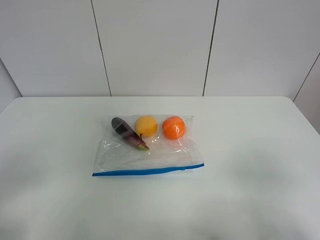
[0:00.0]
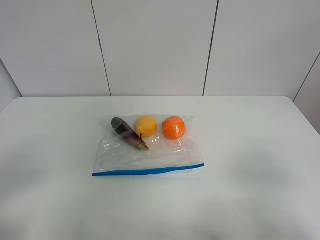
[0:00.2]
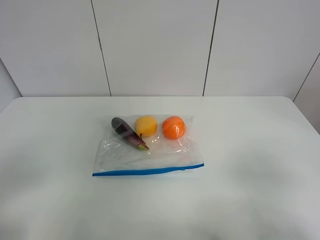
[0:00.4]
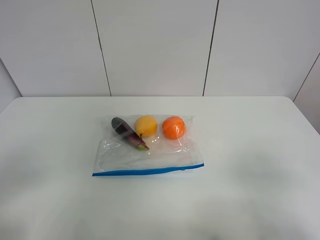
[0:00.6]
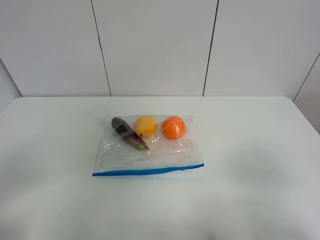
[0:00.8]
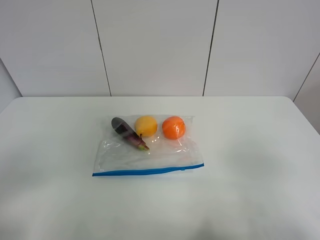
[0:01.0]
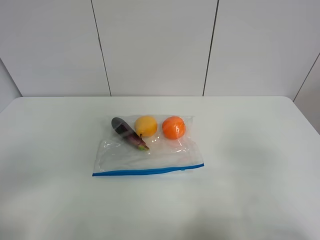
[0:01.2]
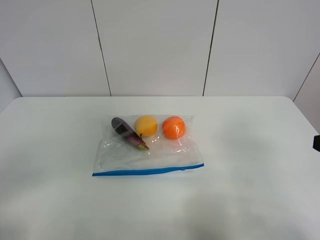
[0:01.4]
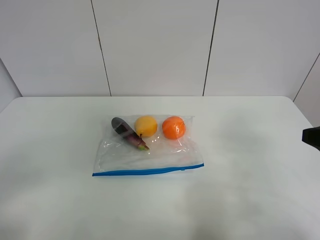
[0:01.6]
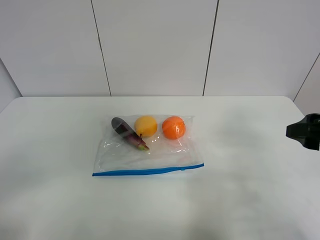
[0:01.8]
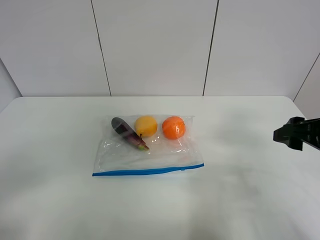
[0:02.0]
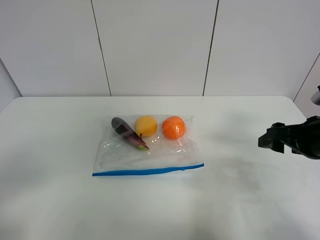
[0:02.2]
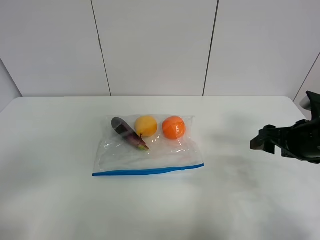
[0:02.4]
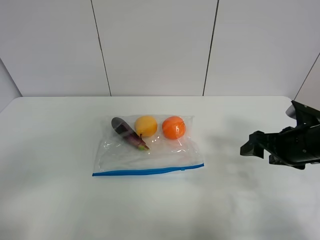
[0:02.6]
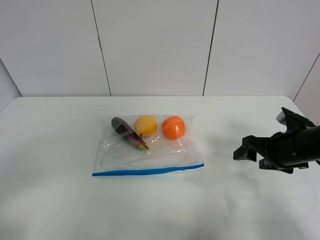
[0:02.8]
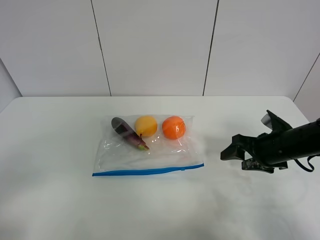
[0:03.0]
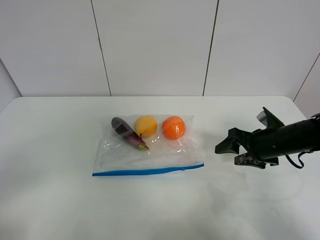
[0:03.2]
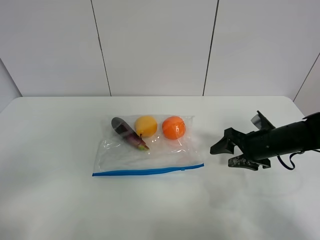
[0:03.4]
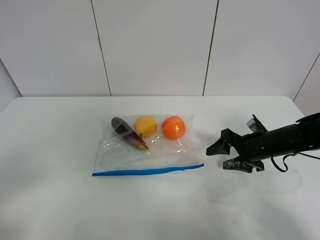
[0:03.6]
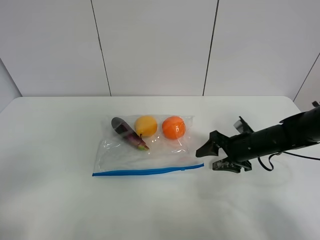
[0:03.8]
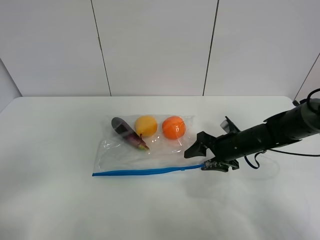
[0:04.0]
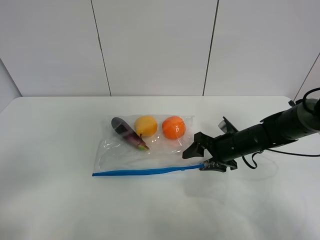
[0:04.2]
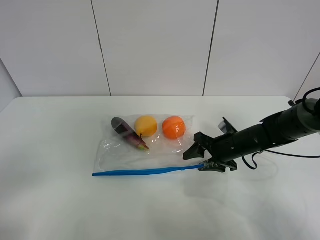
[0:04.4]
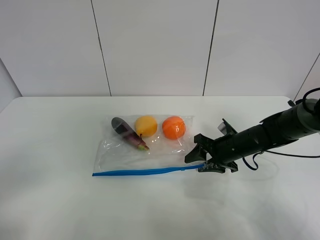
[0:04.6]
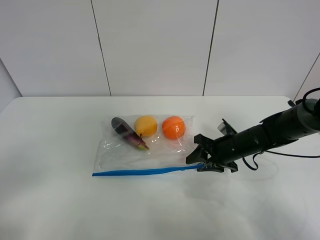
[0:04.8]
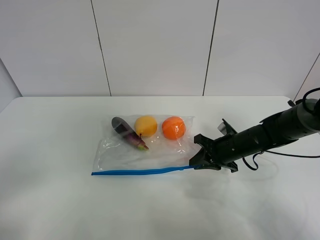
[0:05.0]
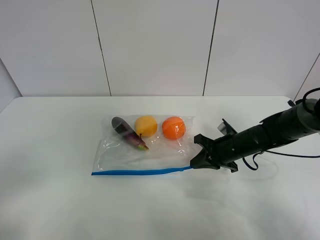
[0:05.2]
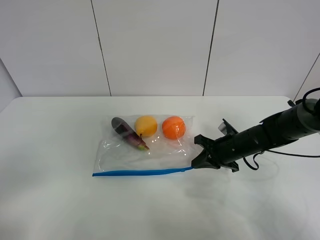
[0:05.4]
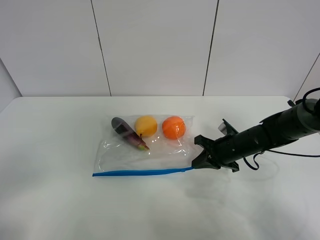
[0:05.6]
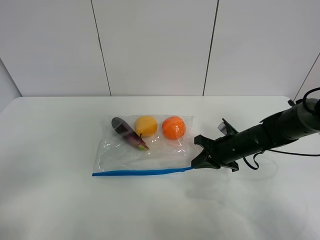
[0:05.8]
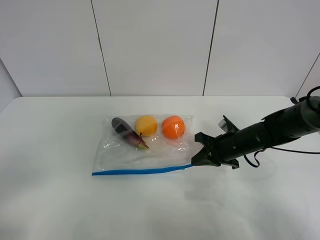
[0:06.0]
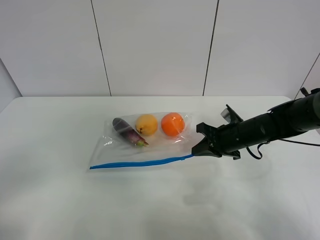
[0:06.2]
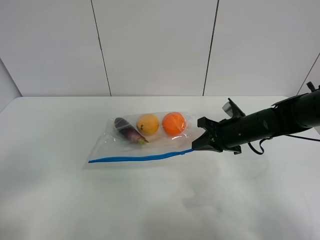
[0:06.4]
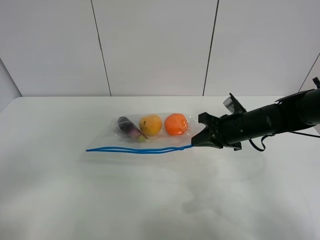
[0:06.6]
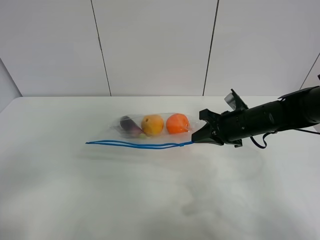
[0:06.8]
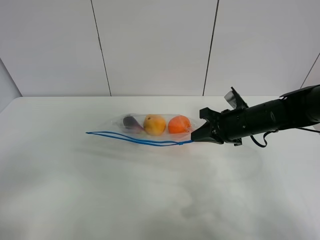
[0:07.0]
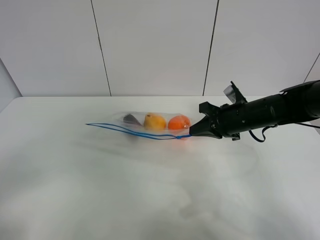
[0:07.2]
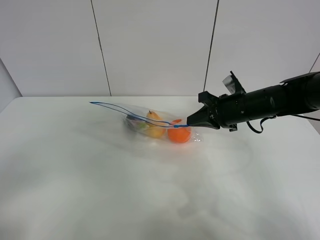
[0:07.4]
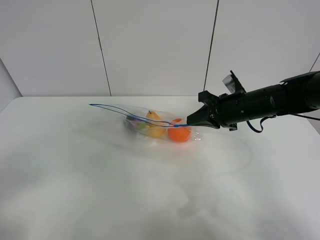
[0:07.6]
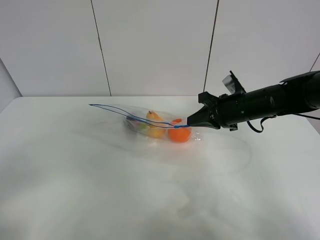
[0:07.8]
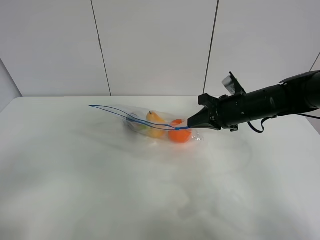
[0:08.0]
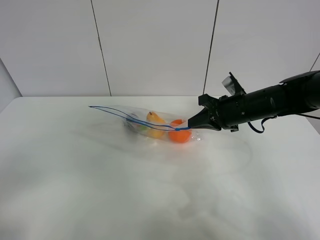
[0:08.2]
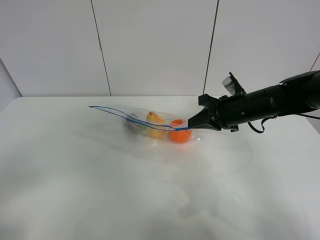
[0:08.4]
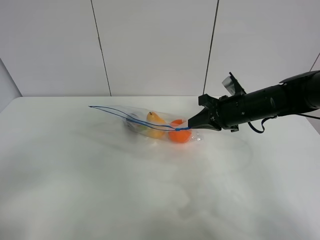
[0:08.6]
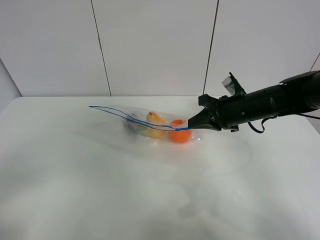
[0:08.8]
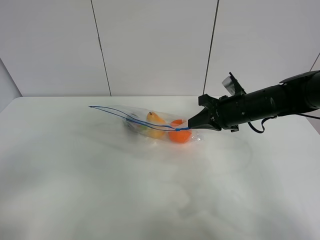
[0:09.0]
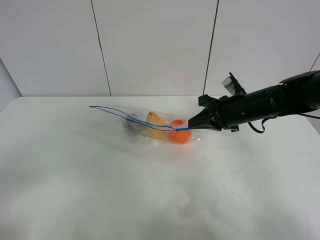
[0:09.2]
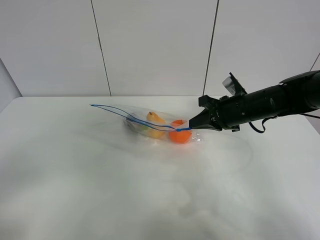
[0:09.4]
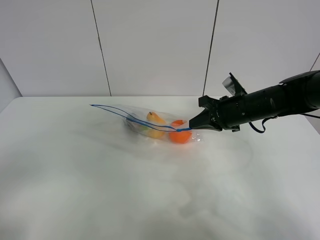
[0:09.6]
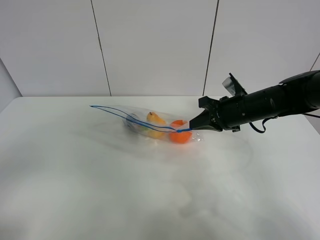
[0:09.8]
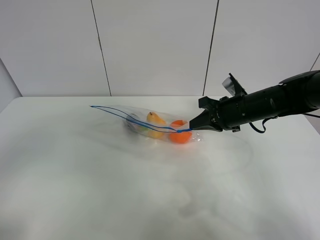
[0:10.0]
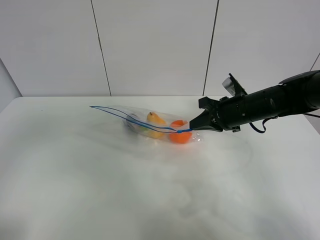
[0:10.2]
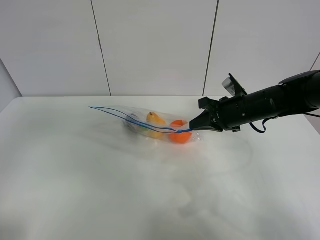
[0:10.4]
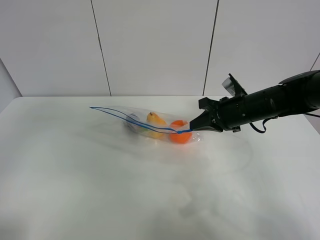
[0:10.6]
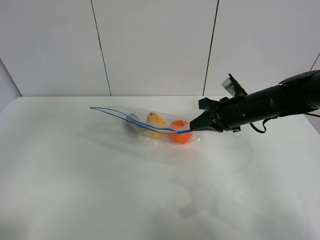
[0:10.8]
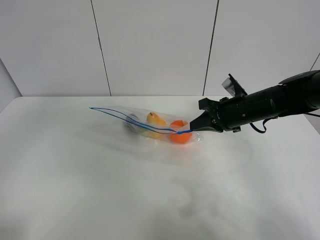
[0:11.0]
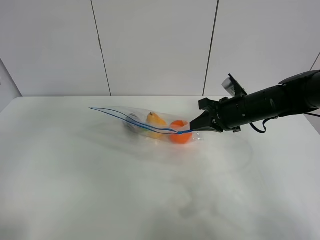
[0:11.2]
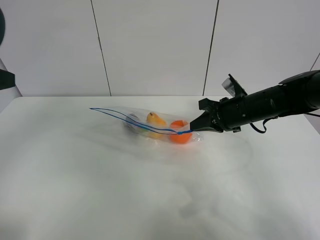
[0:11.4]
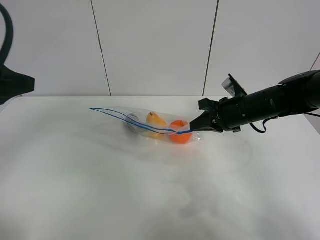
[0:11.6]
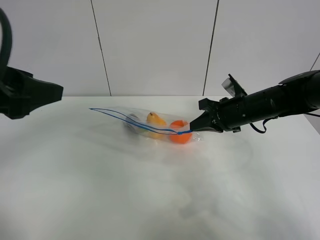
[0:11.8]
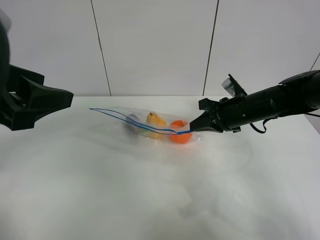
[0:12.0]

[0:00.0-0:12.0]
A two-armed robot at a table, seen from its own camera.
Step, 0:00.0 to 0:05.2: Grasp the fruit bag with right gripper.
Step, 0:05.4 to 0:07.6: Lift the fruit bag with your right gripper.
0:00.0 to 0:01.6: The right gripper shifts approximately 15 cm forward.
0:01.6 to 0:03.0: The right gripper heads downward and forward, covering approximately 20 cm.
0:03.0 to 0:04.4: The right gripper is displaced to the left and downward by about 10 cm.
0:04.4 to 0:06.0: The right gripper closes up.
0:06.0 to 0:07.6: The right gripper heads upward, covering approximately 10 cm.
0:07.6 to 0:09.0: The two grippers keep their place.
0:09.0 to 0:10.4: The left gripper shifts roughly 15 cm upward and forward.
0:10.4 to 0:12.0: The left gripper moves to the right and forward, approximately 10 cm.

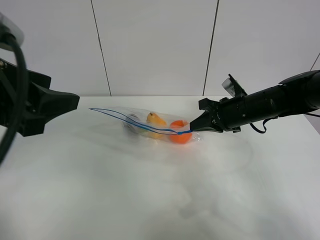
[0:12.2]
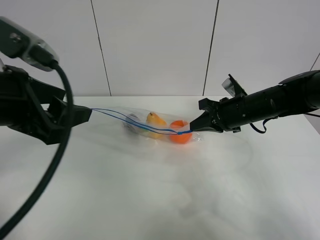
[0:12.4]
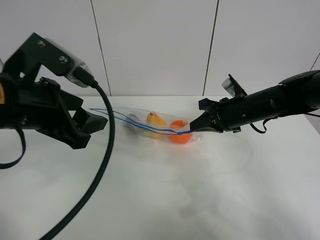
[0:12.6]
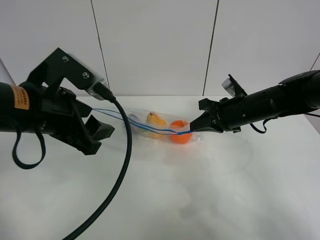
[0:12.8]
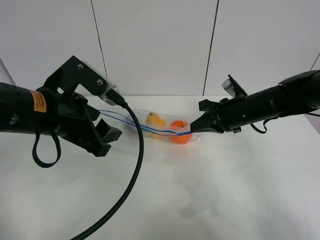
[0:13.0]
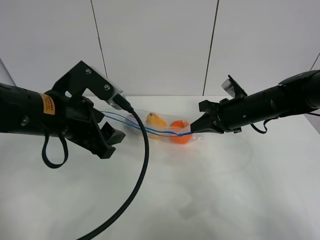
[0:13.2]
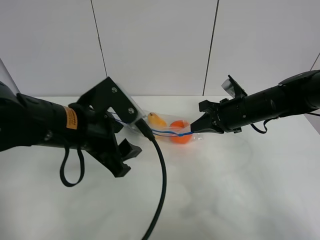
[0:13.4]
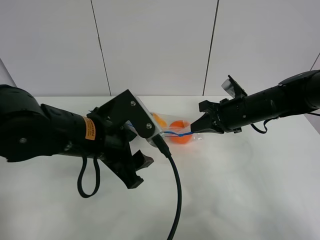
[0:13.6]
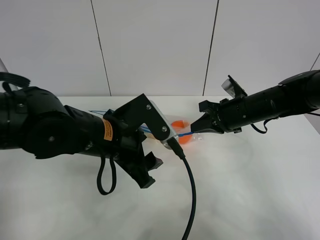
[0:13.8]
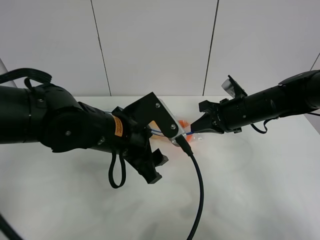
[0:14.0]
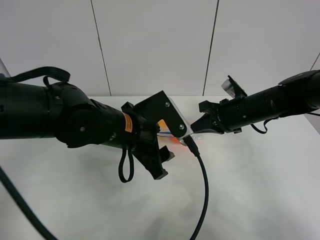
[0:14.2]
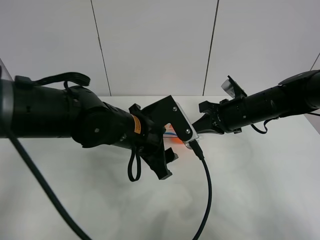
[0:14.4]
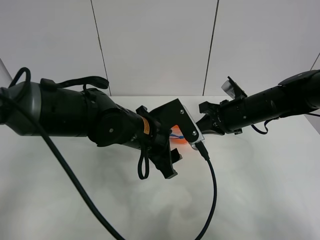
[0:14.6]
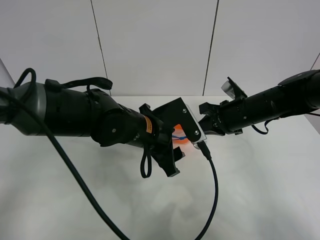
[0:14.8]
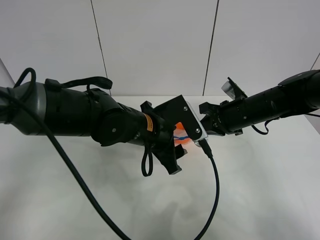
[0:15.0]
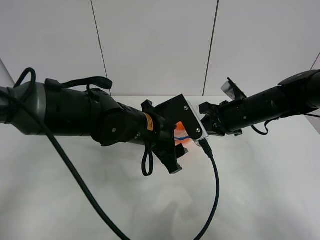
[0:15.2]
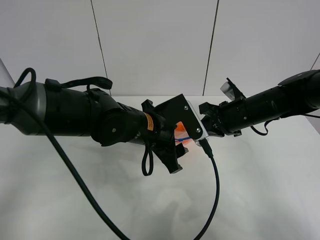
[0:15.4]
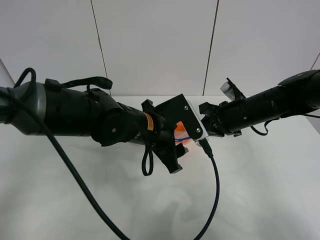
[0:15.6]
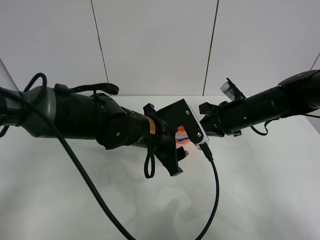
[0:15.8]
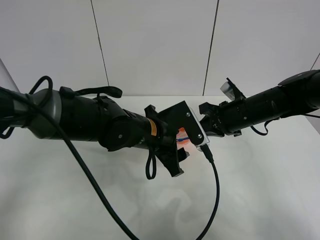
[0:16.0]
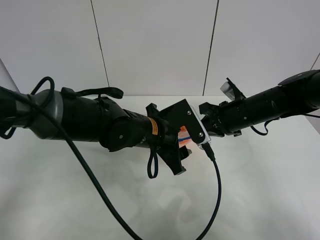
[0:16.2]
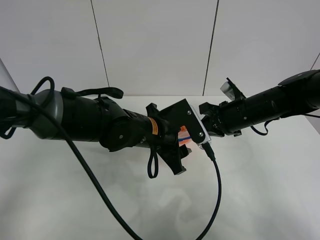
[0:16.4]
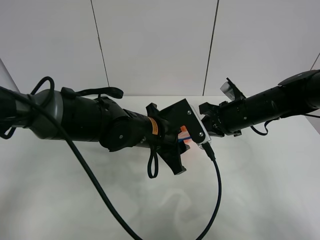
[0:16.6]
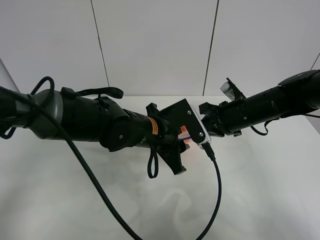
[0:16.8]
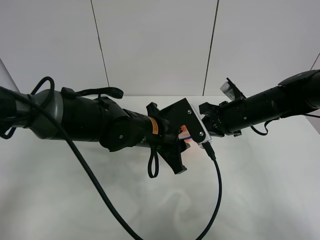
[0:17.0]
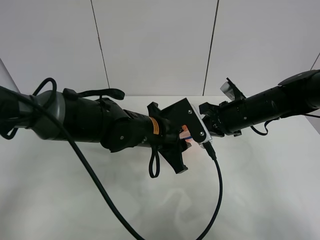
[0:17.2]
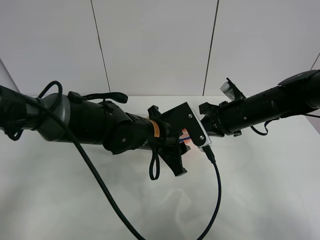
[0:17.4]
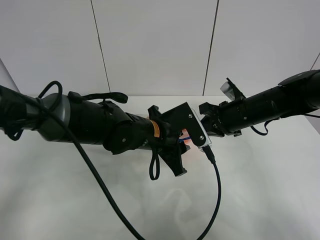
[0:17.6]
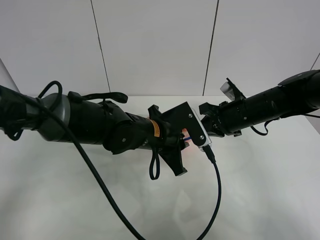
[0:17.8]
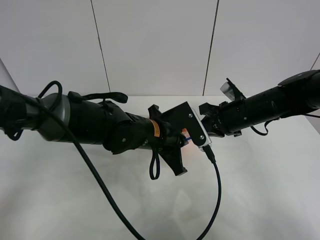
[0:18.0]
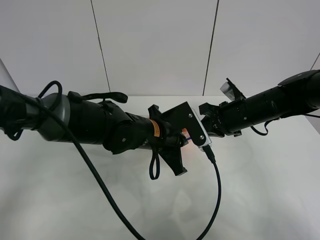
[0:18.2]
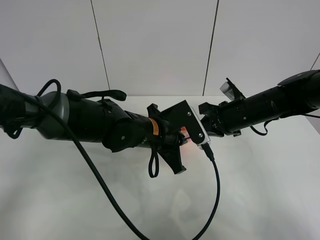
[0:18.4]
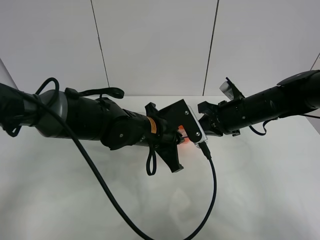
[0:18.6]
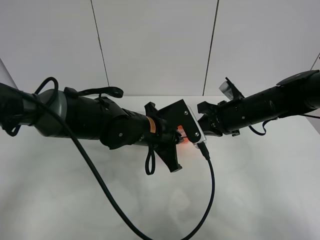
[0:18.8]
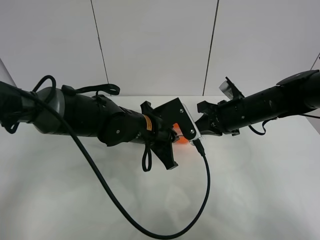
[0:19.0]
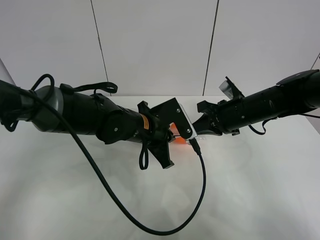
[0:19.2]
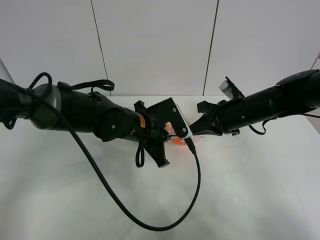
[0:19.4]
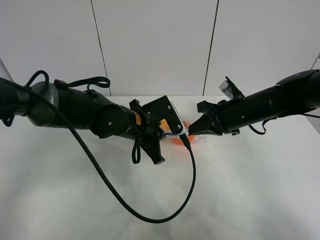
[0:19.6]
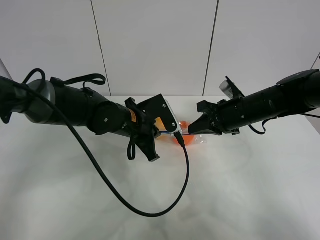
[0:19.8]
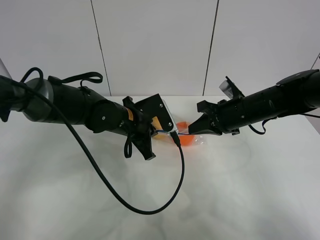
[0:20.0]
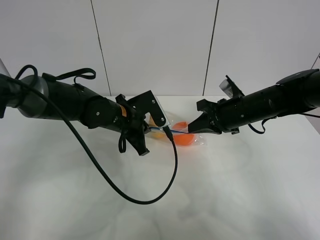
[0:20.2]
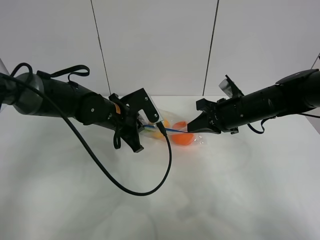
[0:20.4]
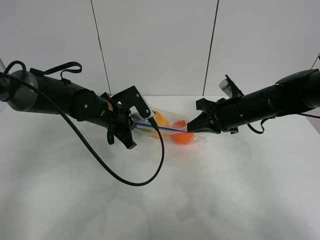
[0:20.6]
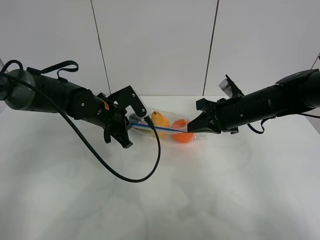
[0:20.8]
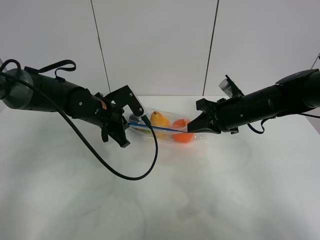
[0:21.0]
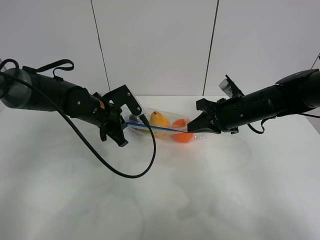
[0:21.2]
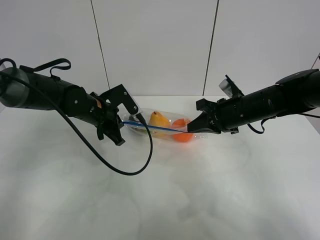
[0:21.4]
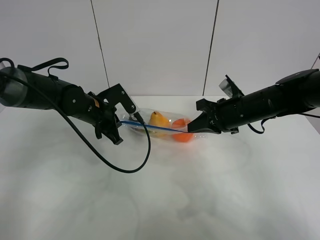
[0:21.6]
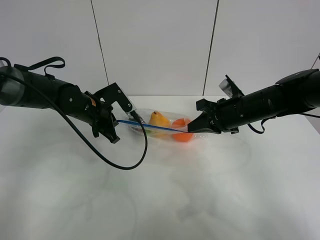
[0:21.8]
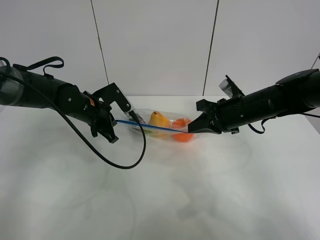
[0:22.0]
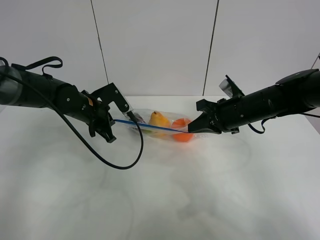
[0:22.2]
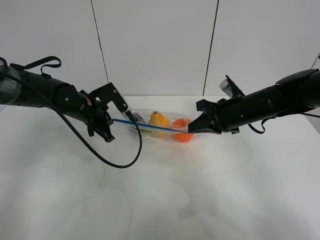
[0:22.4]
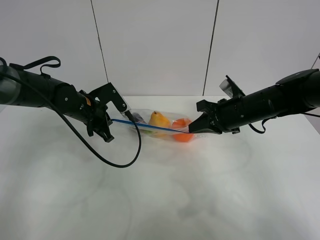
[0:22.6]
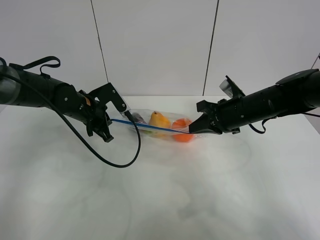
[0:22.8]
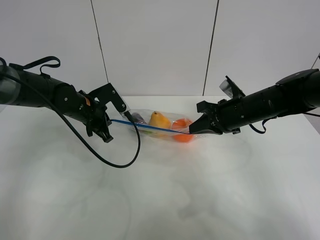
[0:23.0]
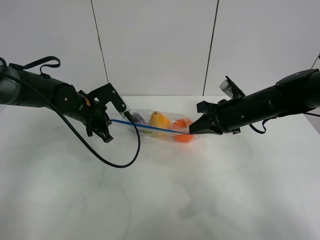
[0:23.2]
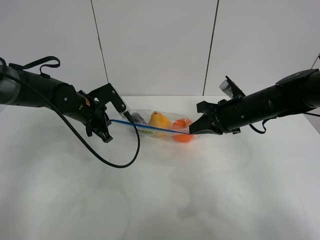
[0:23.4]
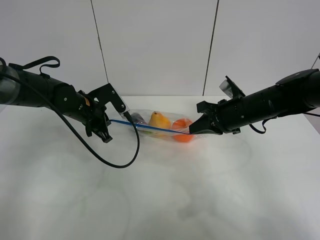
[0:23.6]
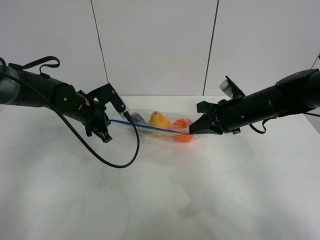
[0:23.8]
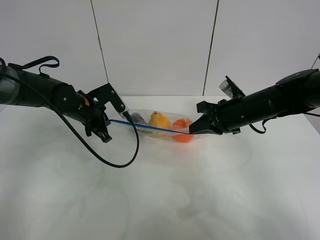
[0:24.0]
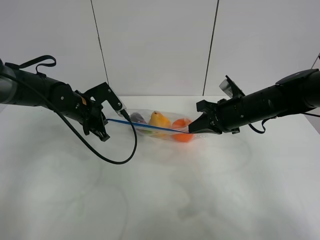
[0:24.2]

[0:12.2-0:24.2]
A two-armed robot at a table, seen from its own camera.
0:12.2 to 0:13.8: The left gripper moves downward, to the right and forward, roughly 20 cm.
0:13.8 to 0:15.2: The left gripper shifts some 5 cm to the right.
0:15.2 to 0:16.6: The grippers make only small movements.
0:16.6 to 0:18.2: The left gripper closes up.
0:18.2 to 0:19.8: The left gripper travels to the left by some 5 cm.
0:19.8 to 0:21.2: The left gripper heads to the left, covering about 10 cm.
0:21.2 to 0:22.6: The grippers stay close to where they were, moving slightly.
0:22.6 to 0:24.2: Neither gripper changes place.
